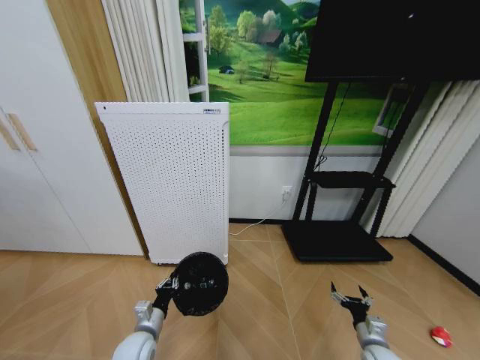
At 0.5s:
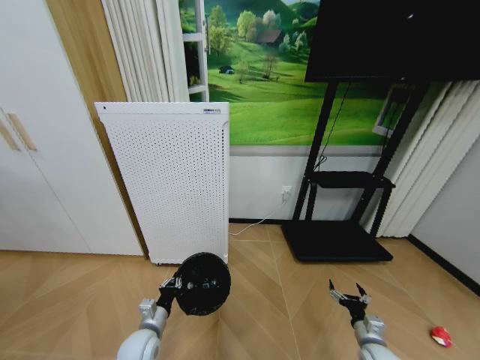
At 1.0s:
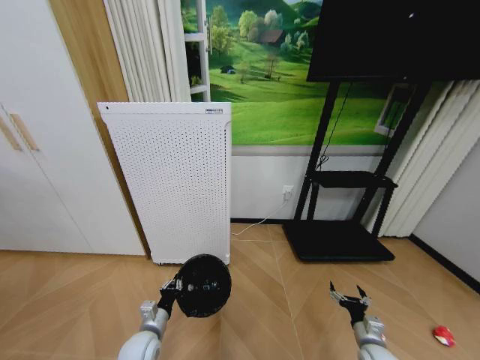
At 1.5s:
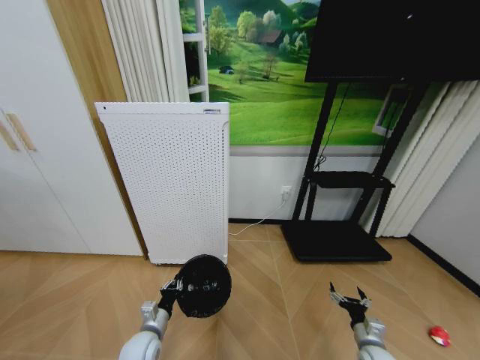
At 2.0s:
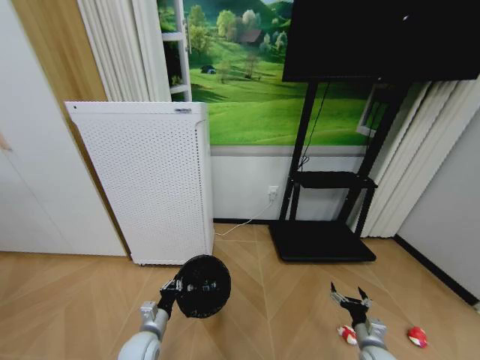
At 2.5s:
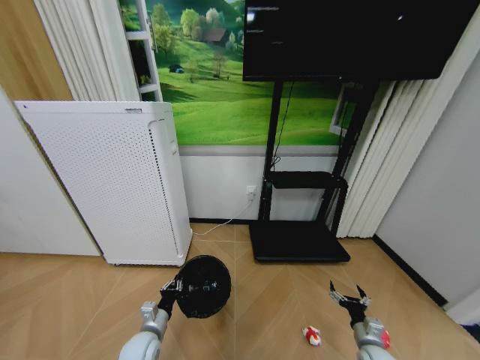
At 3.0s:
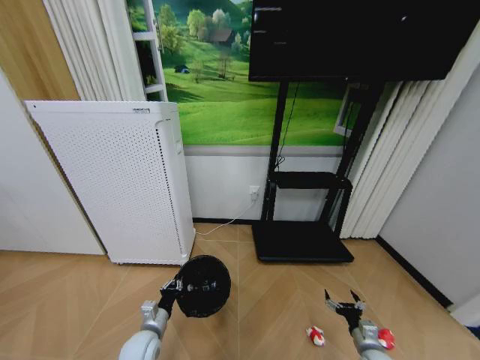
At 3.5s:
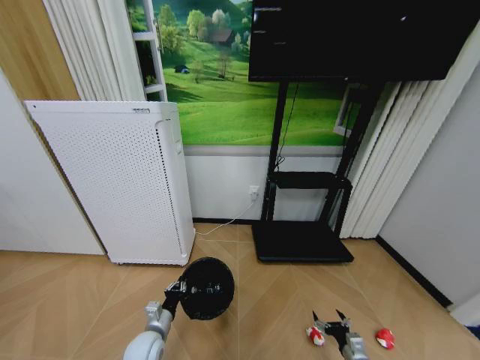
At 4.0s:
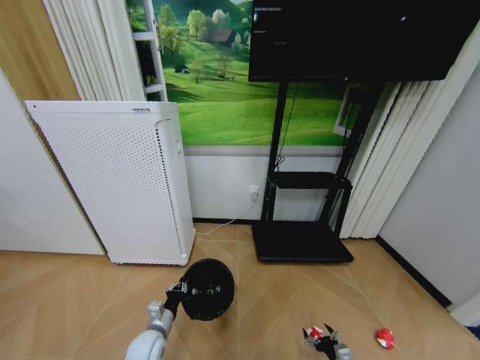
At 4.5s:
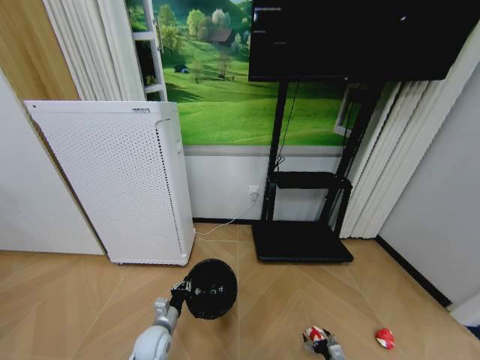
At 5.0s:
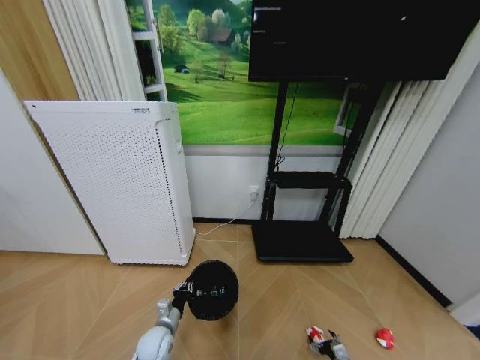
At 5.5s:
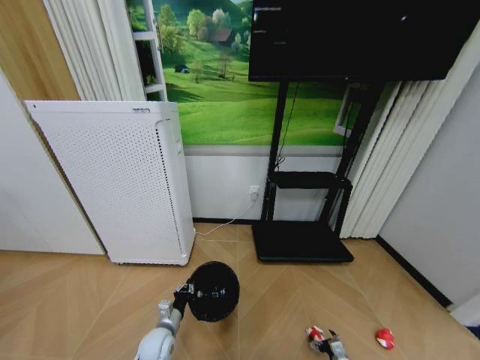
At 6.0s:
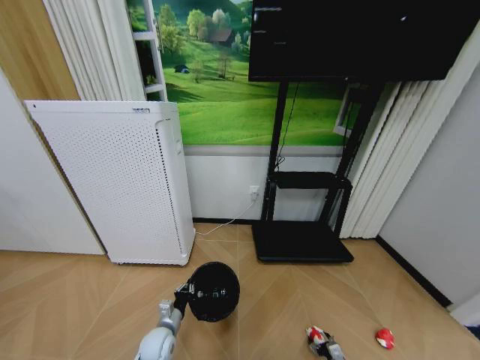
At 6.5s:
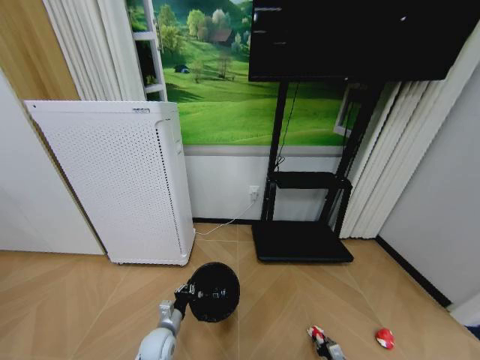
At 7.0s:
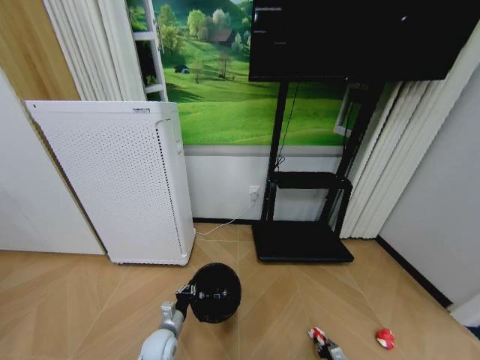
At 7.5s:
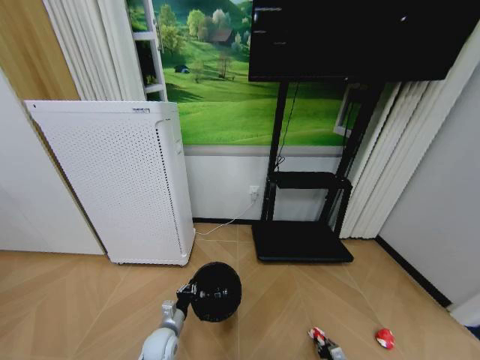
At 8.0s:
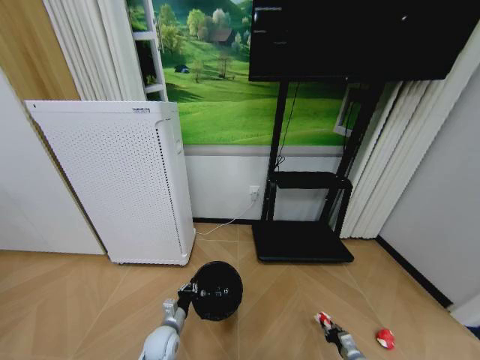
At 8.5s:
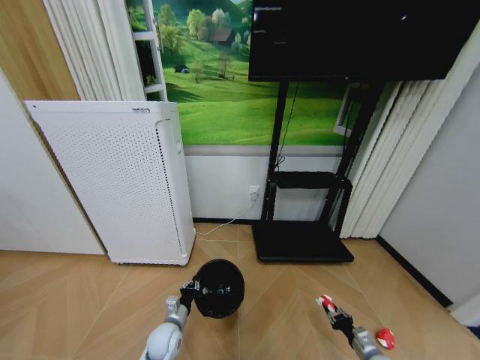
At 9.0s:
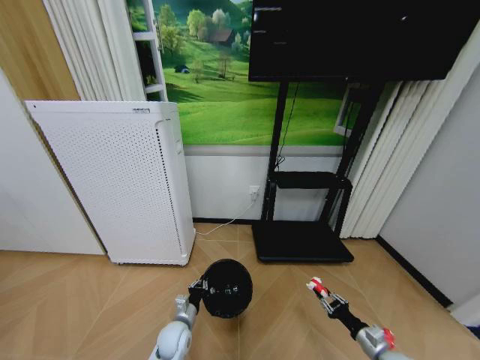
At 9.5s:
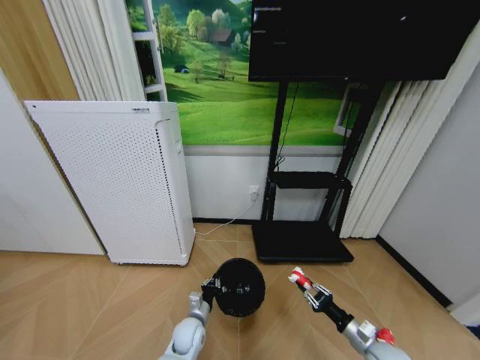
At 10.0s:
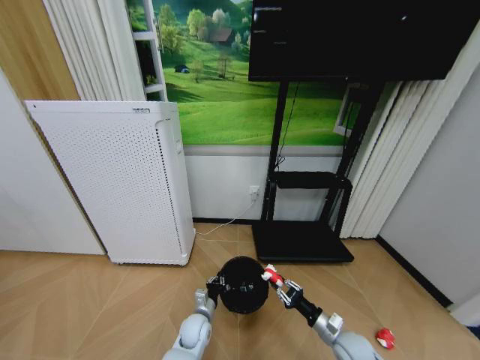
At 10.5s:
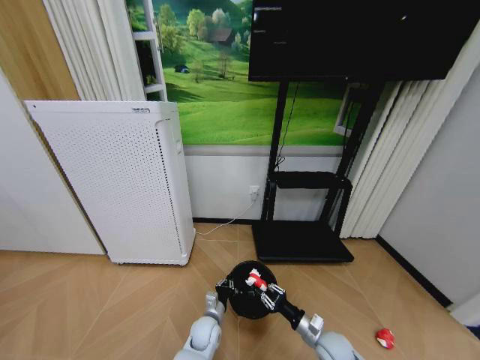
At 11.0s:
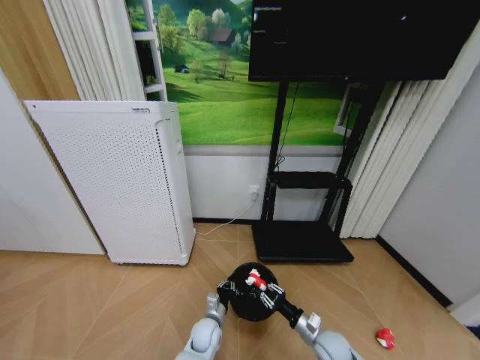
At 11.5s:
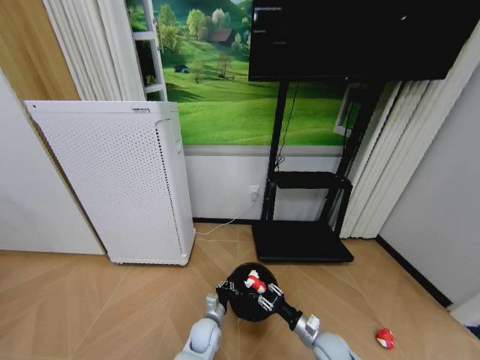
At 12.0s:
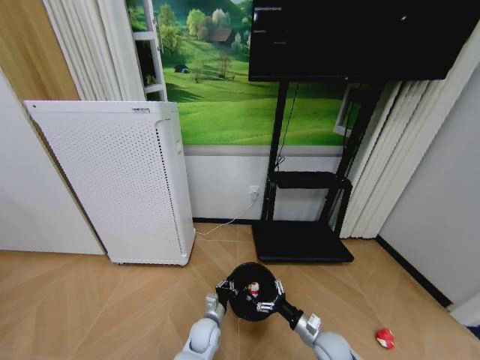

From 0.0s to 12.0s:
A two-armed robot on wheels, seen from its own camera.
Task of the whole recording: Pick up the trash bin and place the garbage on the floor into it.
From 2.0s to 4.0s: The right gripper travels downward by roughly 5 cm.
From 4.0s to 6.0s: The right gripper is displaced downward by approximately 10 cm.
From 6.0s to 8.0s: The right gripper shifts by about 5 cm, and closes.
From 8.0s to 10.0s: The right gripper shifts roughly 20 cm upward and to the left; the left gripper moves to the right, roughly 10 cm.
From 10.0s to 12.0s: The right gripper heads to the left, covering roughly 5 cm, and opens.

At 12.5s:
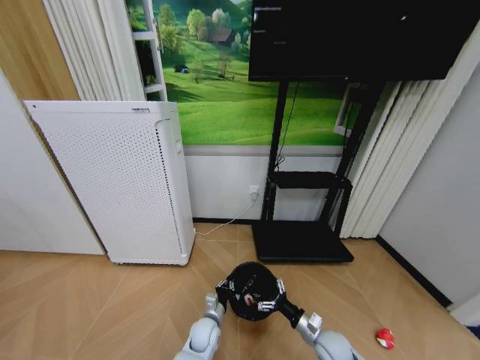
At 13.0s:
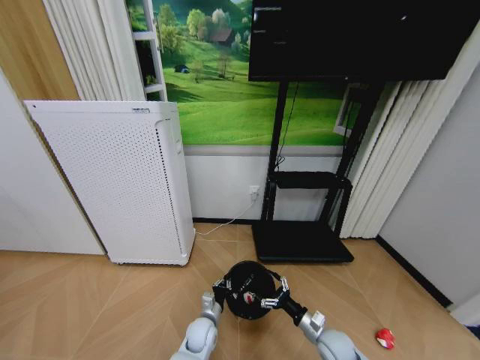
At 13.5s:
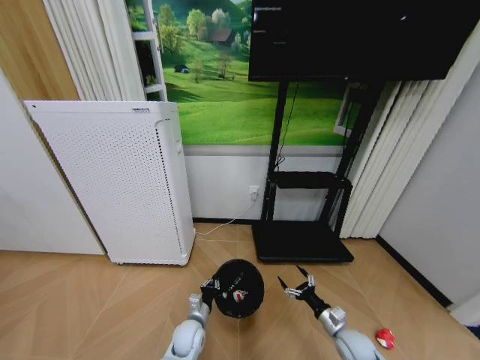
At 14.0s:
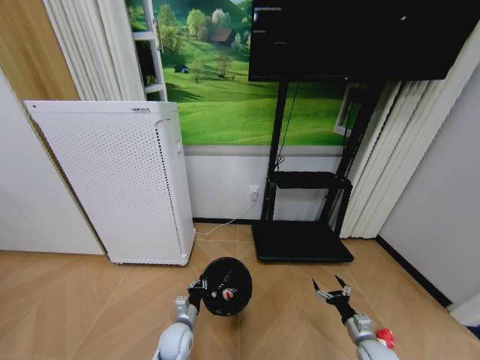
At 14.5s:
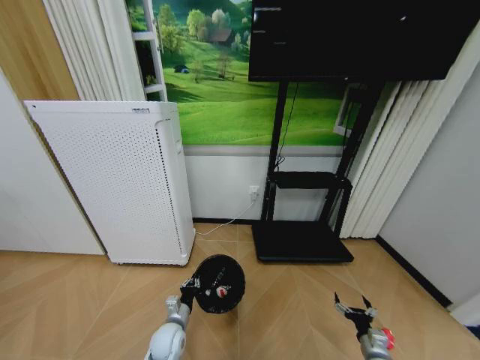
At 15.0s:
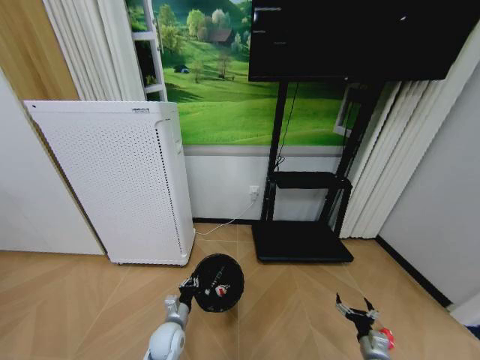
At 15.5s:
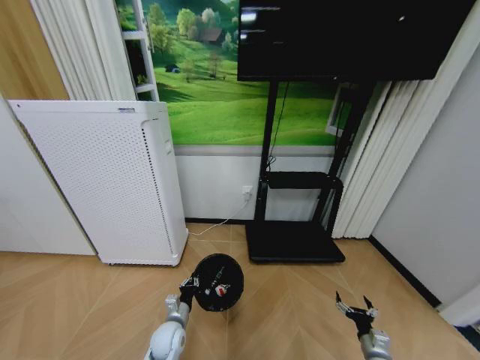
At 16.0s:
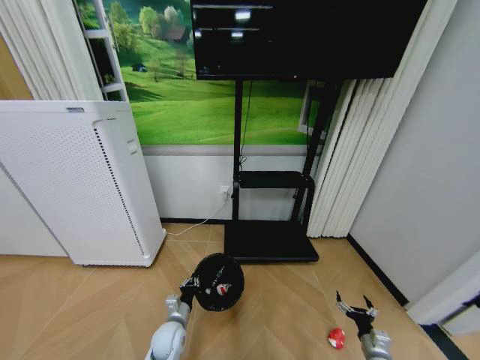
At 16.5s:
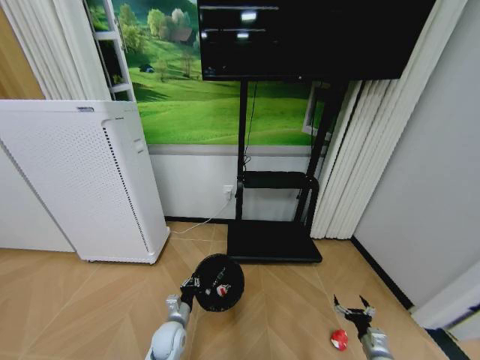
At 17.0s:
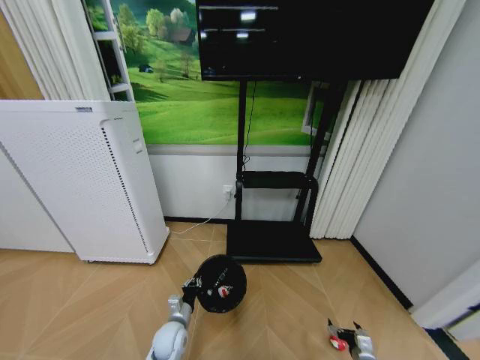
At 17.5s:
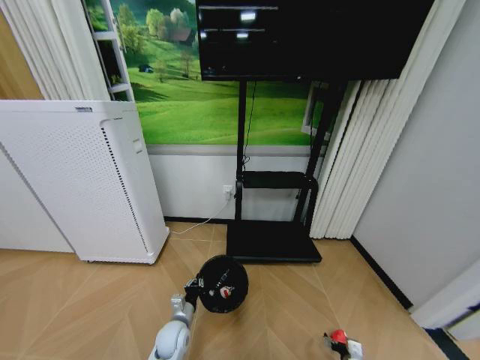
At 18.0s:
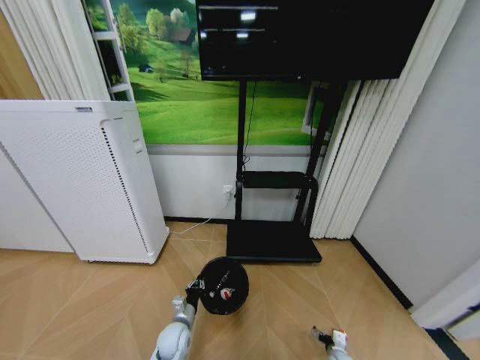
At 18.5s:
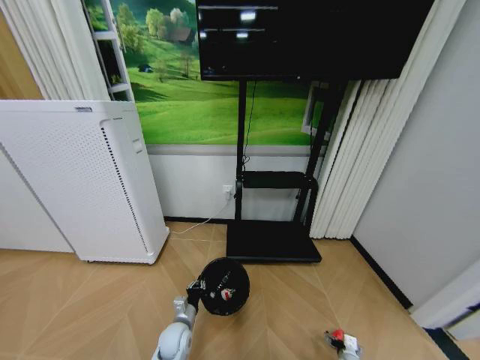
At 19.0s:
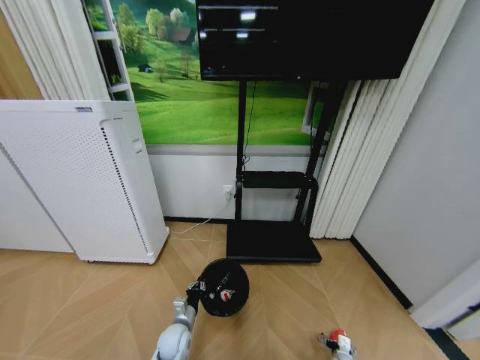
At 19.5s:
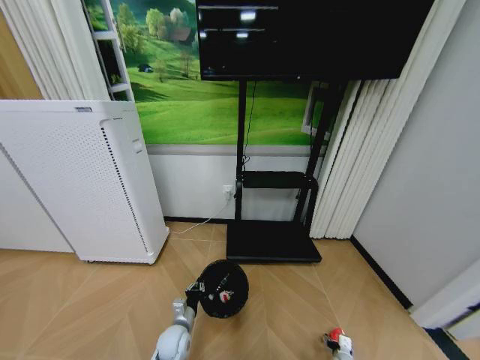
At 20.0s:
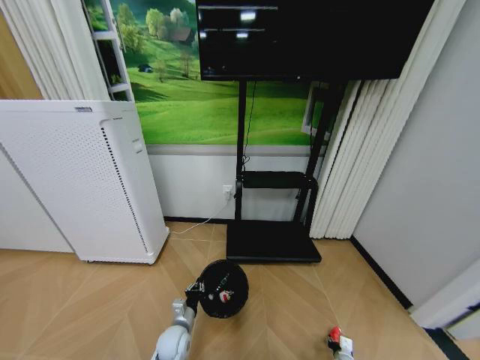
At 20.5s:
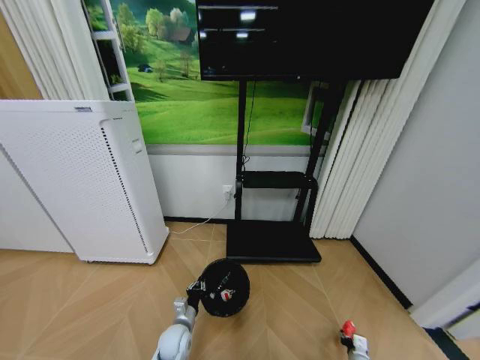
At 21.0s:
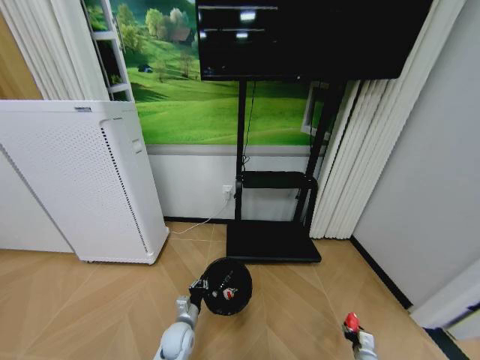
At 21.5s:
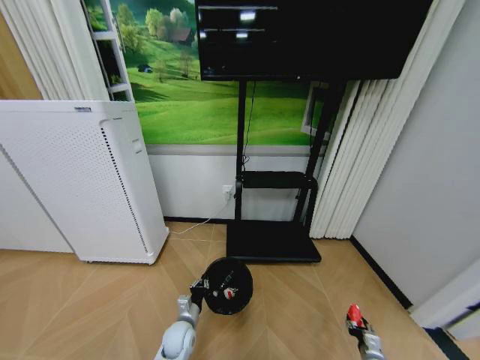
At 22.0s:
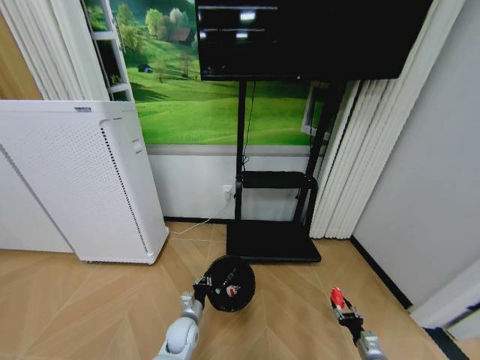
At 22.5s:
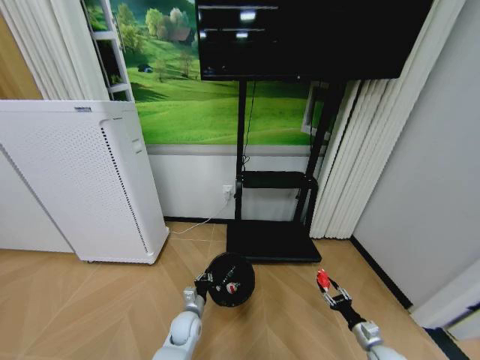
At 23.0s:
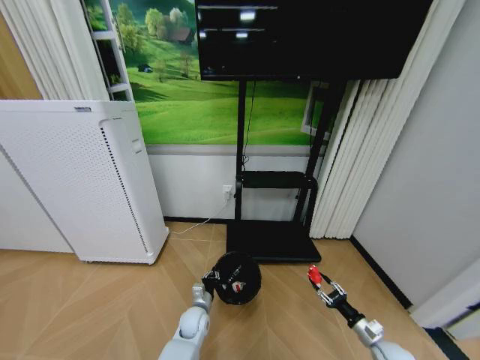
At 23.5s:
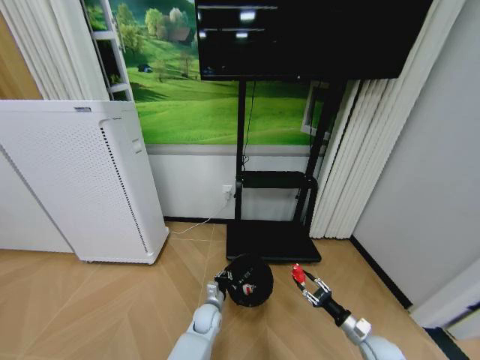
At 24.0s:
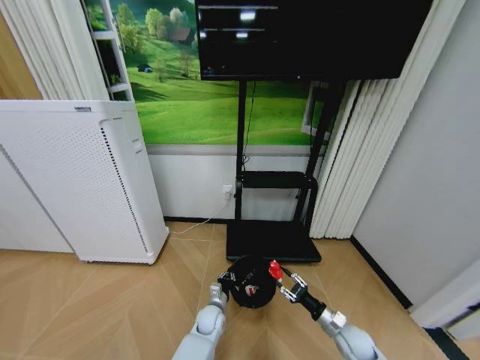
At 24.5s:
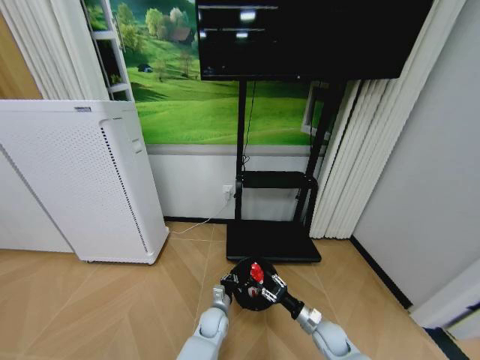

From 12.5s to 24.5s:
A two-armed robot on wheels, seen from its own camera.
Task of the whole recording: Pick up the trash bin and place the garbage on the floor into it.
From 12.5s to 14.5s: The left gripper is displaced to the left by some 10 cm, while the right gripper goes approximately 15 cm to the right.
From 16.5s to 18.5s: The right gripper moves downward and to the left, about 10 cm.
From 18.5s to 20.5s: The right gripper closes up.
From 20.5s to 22.5s: The right gripper travels upward by about 10 cm.
From 22.5s to 24.5s: The right gripper travels to the left by approximately 15 cm; the left gripper goes about 10 cm to the right.

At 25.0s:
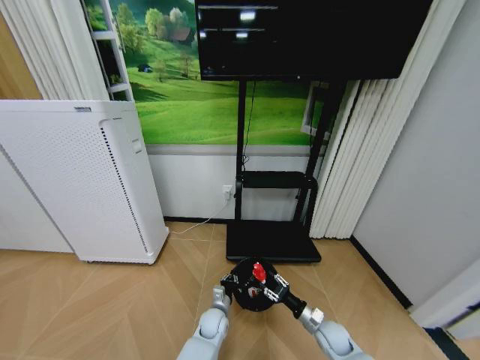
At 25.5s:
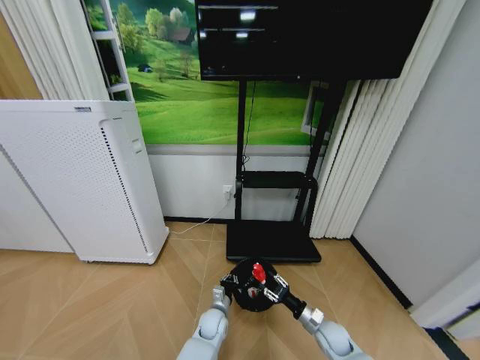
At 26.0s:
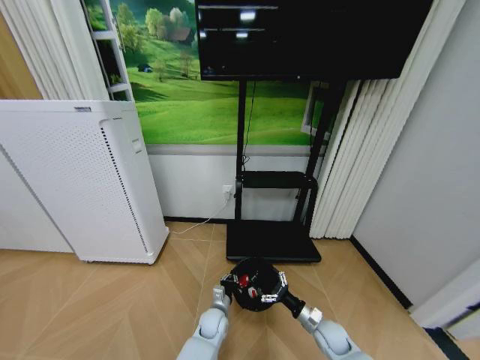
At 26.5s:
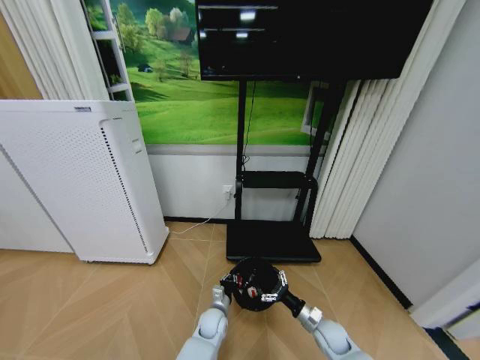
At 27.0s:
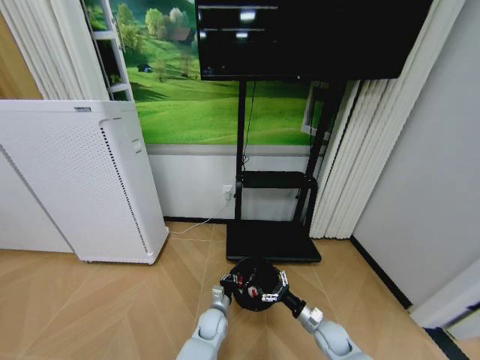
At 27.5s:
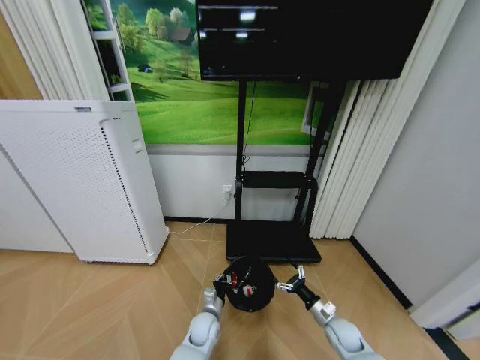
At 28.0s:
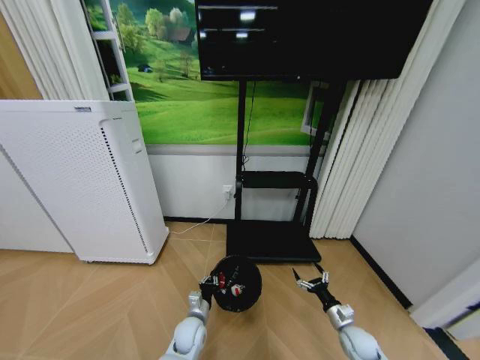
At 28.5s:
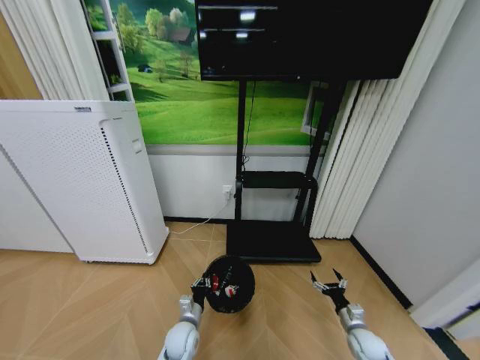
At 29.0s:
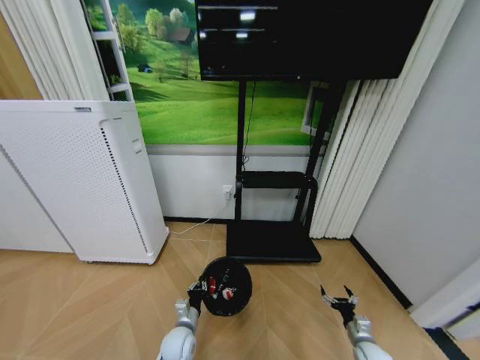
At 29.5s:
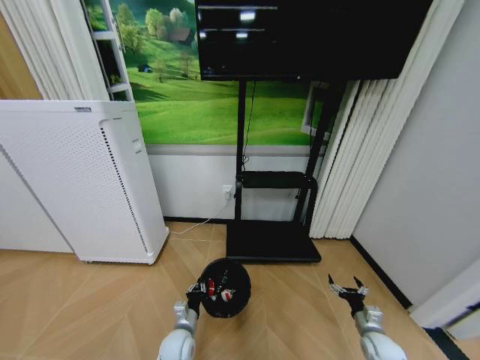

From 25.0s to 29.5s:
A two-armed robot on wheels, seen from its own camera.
Task of the whole recording: Pick up the trash bin and place the garbage on the floor into it.
From 27.0s to 29.5s: The left gripper heads to the left and backward, covering approximately 10 cm, while the right gripper travels to the right by some 15 cm.
